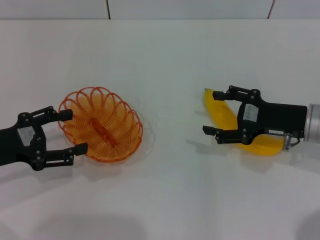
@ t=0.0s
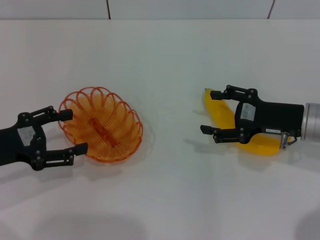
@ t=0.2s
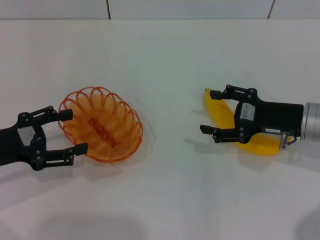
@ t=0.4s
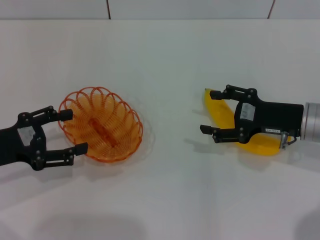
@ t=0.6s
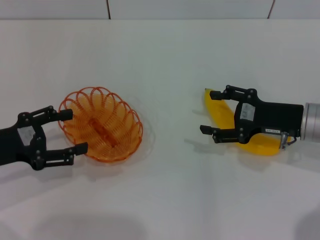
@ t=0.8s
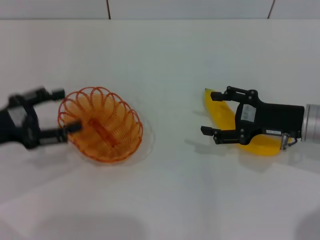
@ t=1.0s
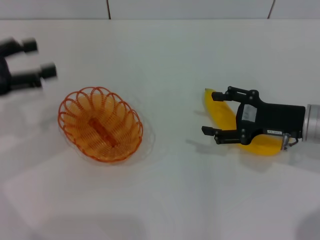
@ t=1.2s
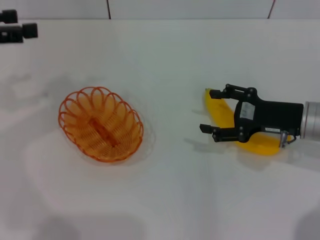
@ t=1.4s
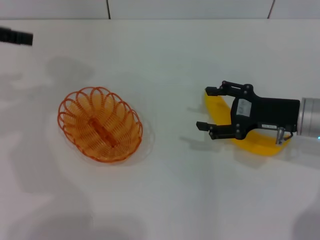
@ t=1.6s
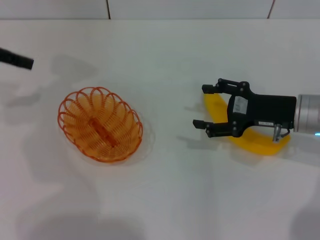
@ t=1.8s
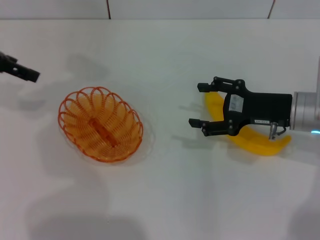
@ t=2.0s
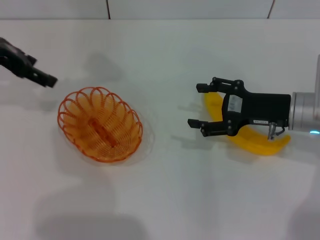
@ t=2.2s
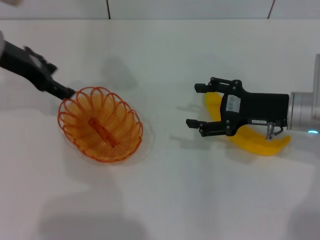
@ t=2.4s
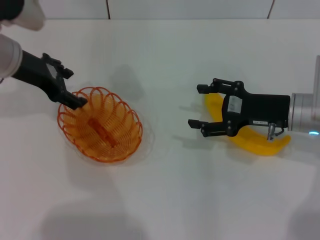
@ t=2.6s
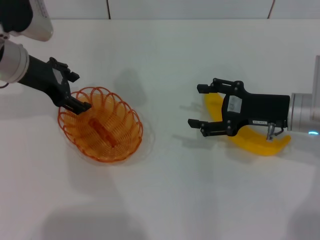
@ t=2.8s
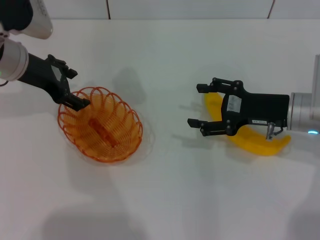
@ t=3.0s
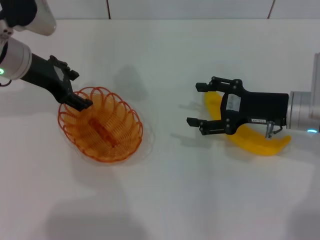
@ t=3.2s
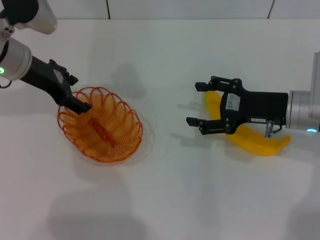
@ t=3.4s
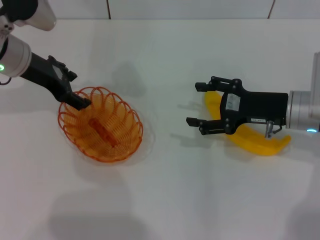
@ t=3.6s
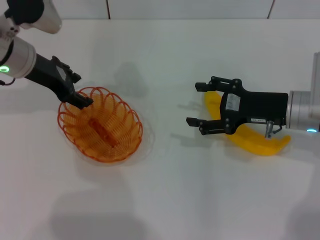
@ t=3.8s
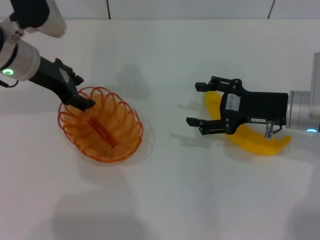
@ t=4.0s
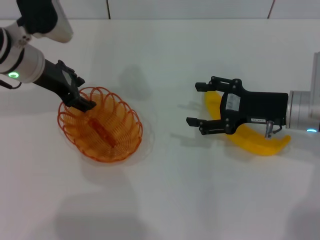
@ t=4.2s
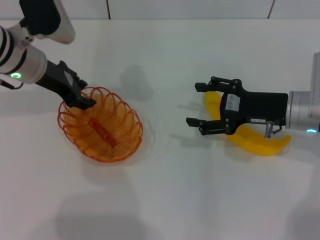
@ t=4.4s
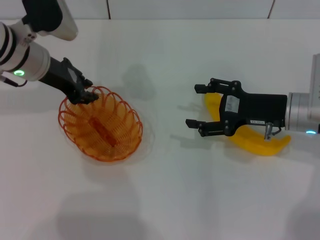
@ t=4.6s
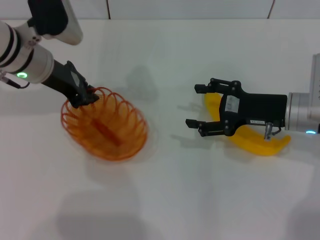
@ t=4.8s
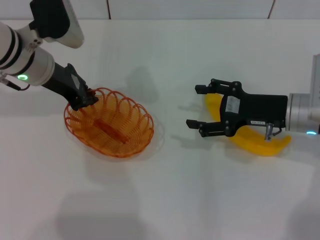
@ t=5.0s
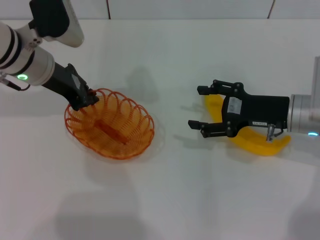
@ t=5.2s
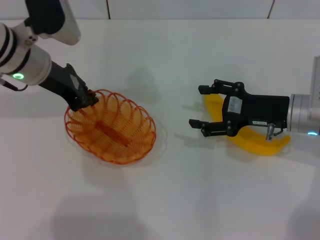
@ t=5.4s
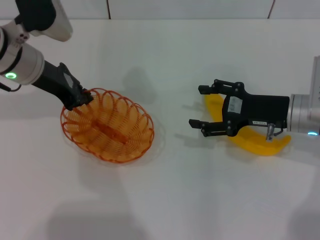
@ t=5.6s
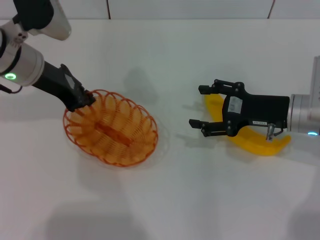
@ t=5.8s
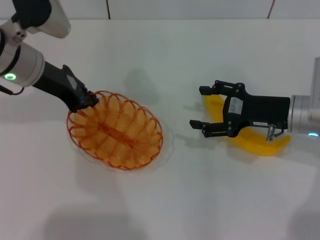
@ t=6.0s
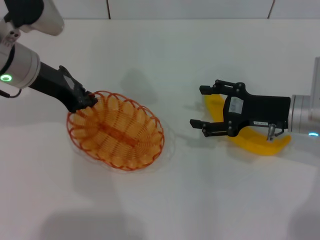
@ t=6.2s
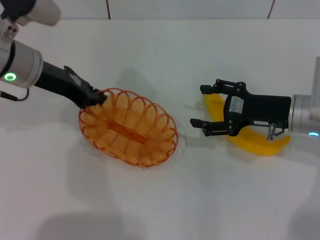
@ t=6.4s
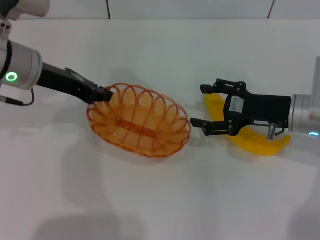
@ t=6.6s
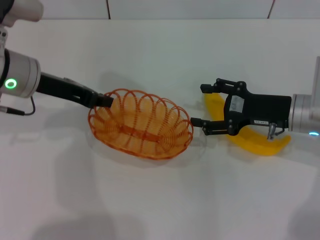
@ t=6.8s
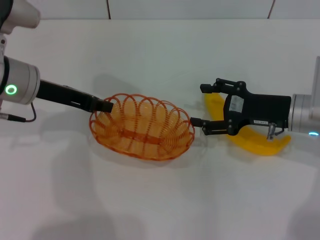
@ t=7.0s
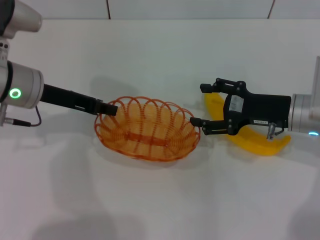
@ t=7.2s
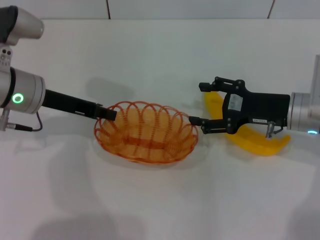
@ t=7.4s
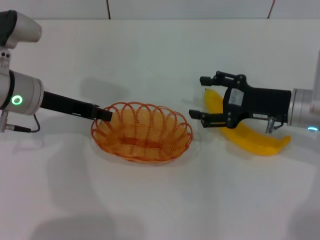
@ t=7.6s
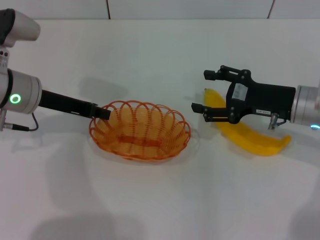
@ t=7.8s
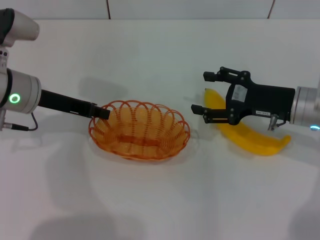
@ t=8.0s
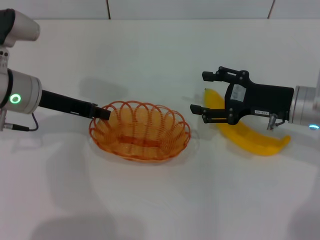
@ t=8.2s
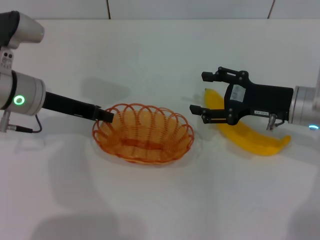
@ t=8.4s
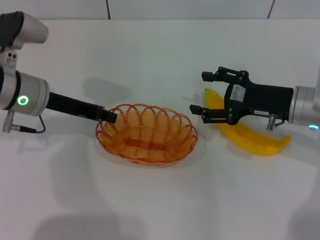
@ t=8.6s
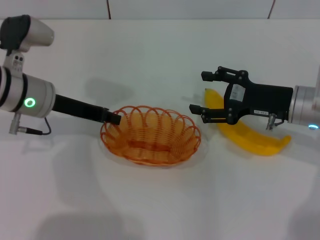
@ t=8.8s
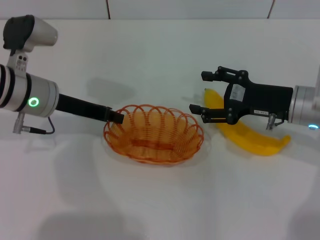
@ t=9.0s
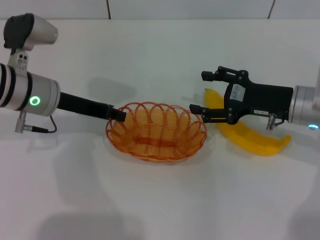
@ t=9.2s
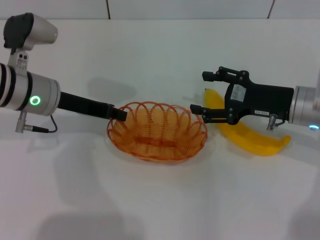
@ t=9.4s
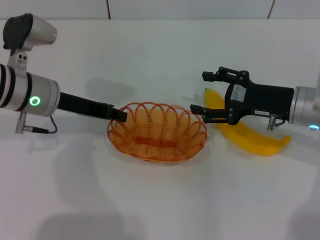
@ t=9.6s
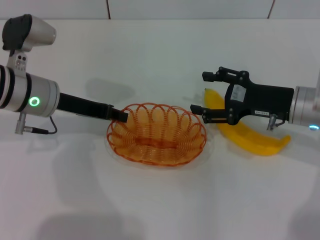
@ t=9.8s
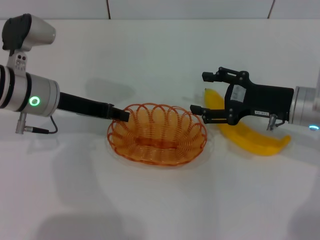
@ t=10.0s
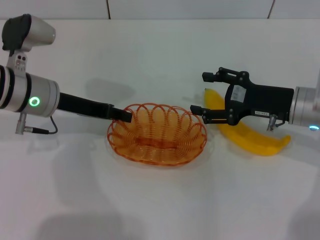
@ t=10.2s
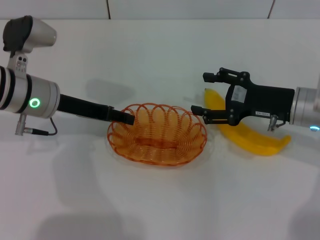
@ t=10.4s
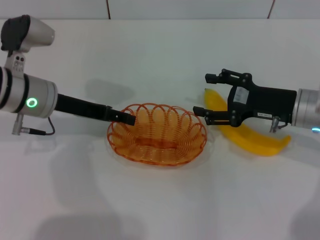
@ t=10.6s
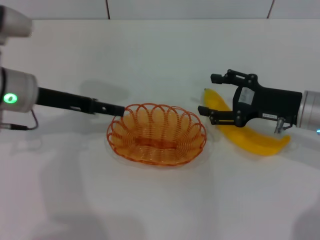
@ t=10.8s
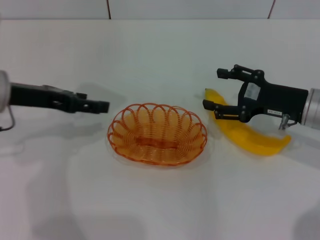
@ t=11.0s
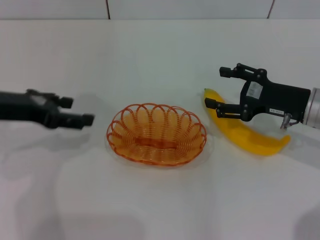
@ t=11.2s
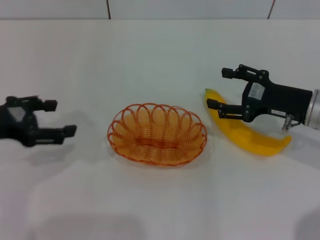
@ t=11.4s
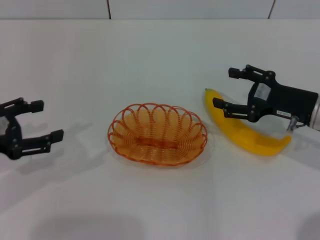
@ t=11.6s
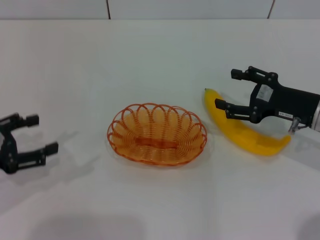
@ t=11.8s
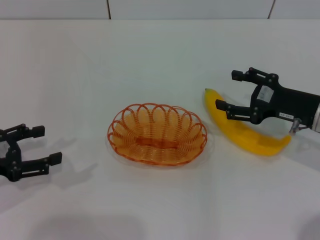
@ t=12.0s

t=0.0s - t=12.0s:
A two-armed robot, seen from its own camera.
Step, t=0.0s - t=5.8s: Pick up the basket with the left gripper.
Step, t=6.0s - t=10.6s: Place the basket in the center of view with the left gripper.
t=0.0s - t=1.6s: The left gripper goes roughly 20 cm upward and forward.
t=1.6s - t=3.0s: The left gripper goes roughly 15 cm to the right and downward.
t=3.0s - t=4.4s: The grippers make only small movements.
t=4.4s - t=6.0s: The left gripper closes up.
t=6.0s - t=7.6s: The left gripper shifts by approximately 5 cm.
t=7.6s - t=9.0s: The grippers move only a little.
t=9.0s - t=10.4s: The left gripper opens.
t=10.4s - t=12.0s: The left gripper heads to the left and backward, covering roughly 20 cm, and opens its fingers.

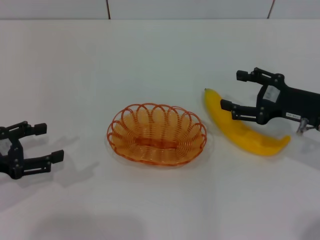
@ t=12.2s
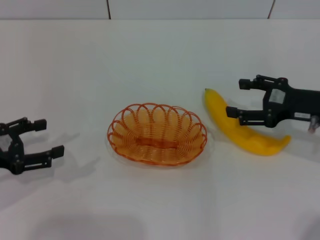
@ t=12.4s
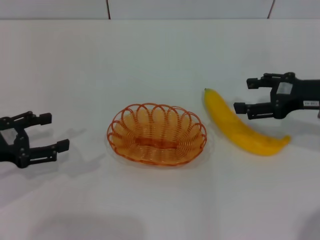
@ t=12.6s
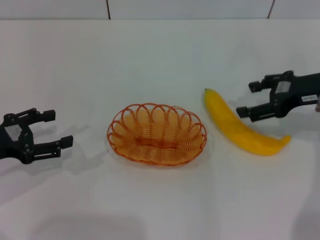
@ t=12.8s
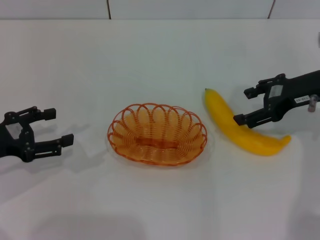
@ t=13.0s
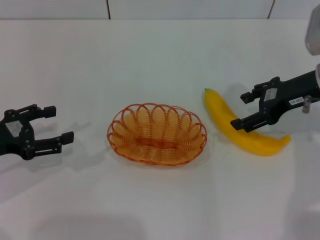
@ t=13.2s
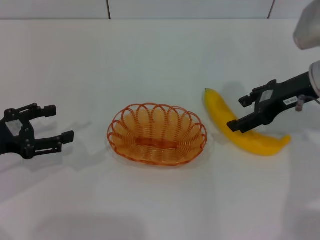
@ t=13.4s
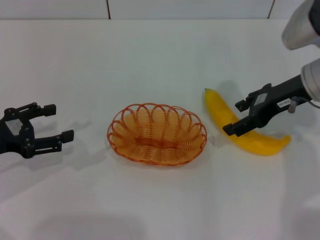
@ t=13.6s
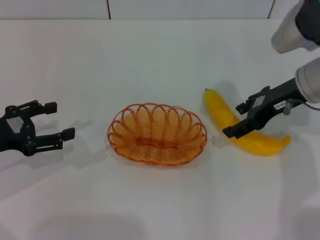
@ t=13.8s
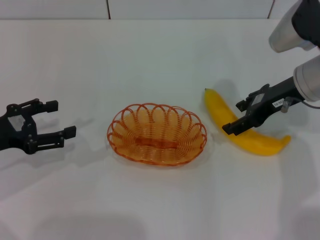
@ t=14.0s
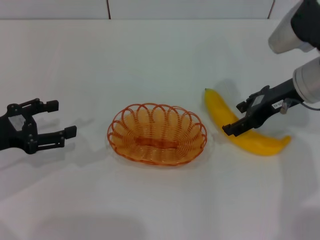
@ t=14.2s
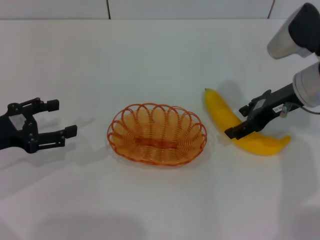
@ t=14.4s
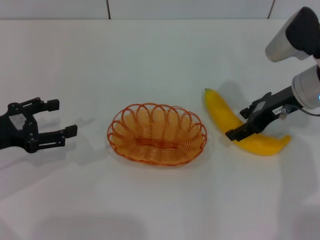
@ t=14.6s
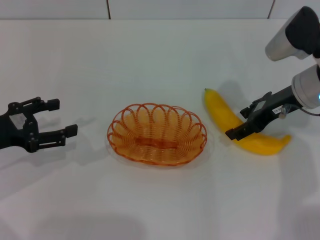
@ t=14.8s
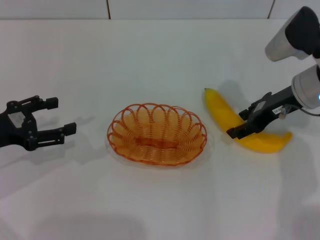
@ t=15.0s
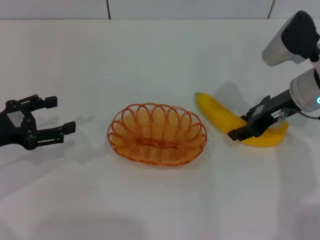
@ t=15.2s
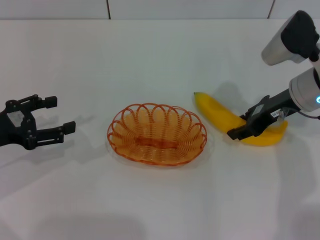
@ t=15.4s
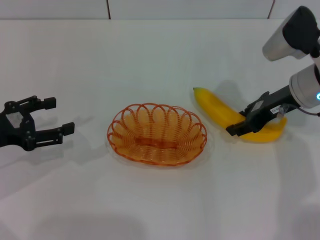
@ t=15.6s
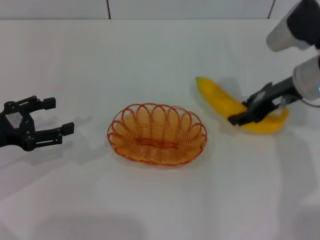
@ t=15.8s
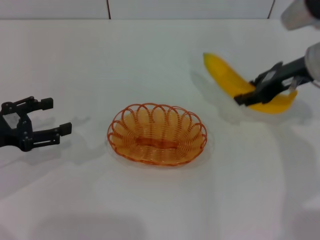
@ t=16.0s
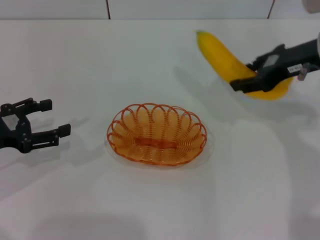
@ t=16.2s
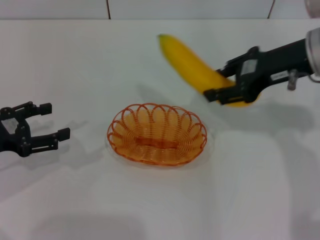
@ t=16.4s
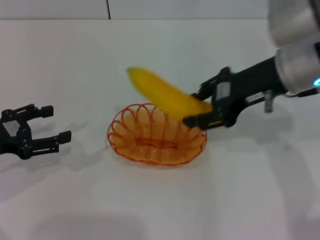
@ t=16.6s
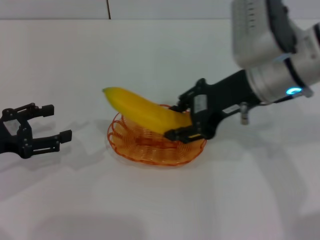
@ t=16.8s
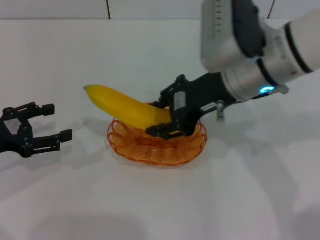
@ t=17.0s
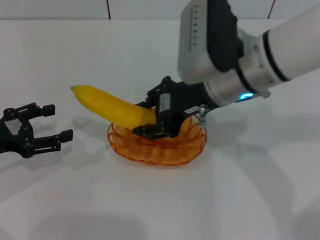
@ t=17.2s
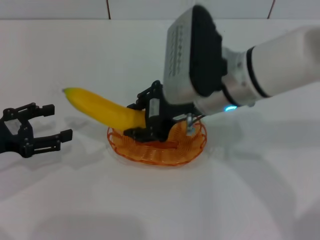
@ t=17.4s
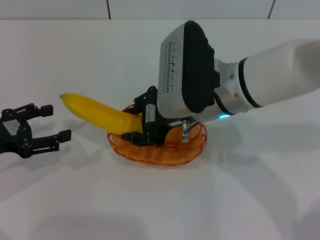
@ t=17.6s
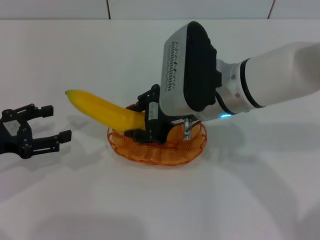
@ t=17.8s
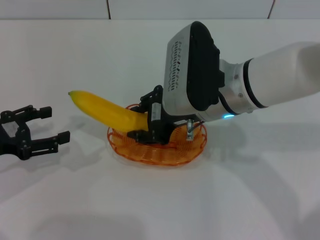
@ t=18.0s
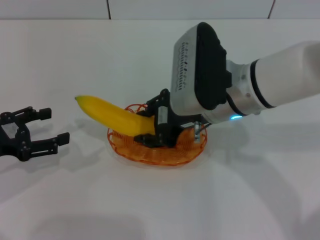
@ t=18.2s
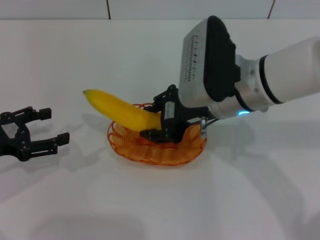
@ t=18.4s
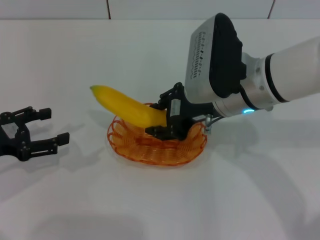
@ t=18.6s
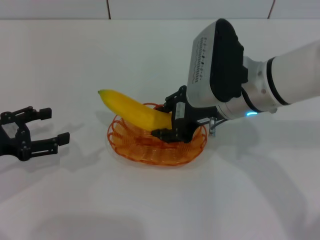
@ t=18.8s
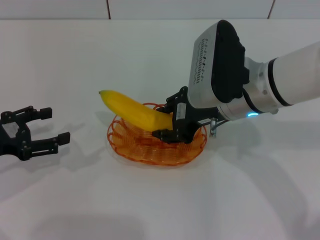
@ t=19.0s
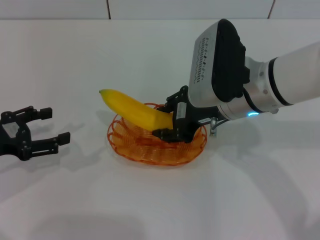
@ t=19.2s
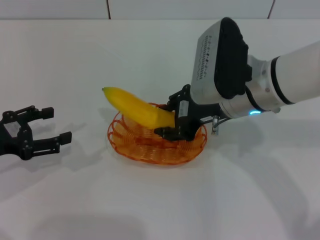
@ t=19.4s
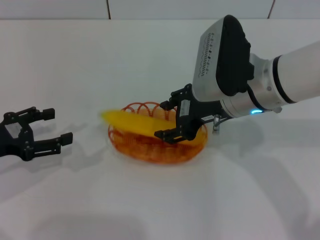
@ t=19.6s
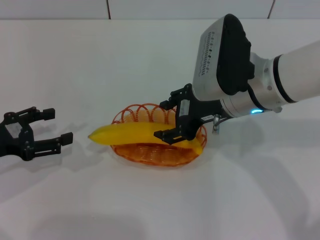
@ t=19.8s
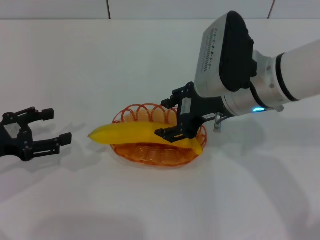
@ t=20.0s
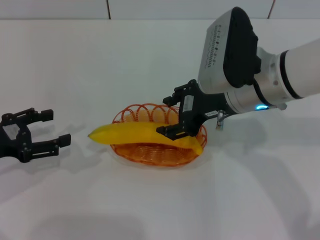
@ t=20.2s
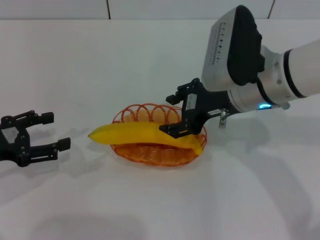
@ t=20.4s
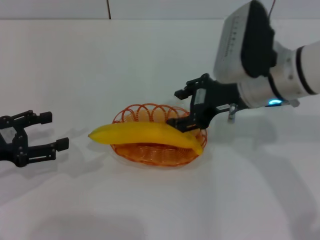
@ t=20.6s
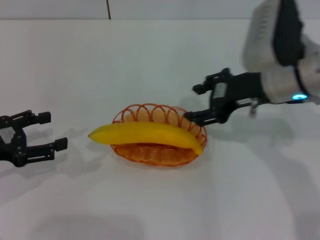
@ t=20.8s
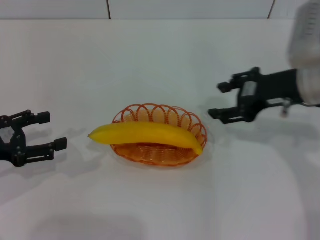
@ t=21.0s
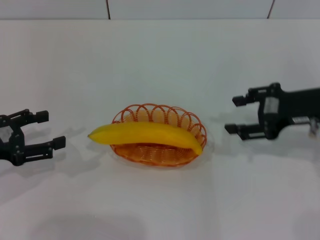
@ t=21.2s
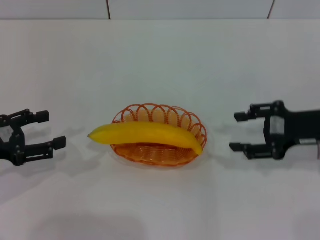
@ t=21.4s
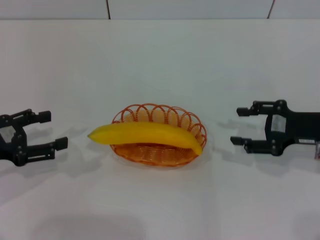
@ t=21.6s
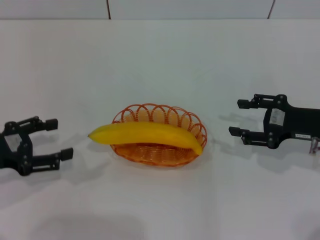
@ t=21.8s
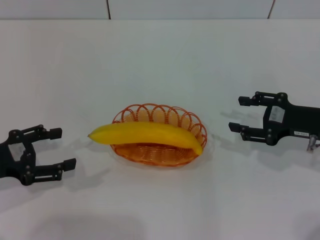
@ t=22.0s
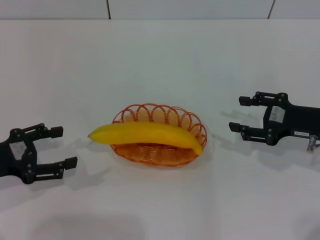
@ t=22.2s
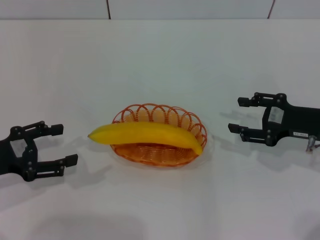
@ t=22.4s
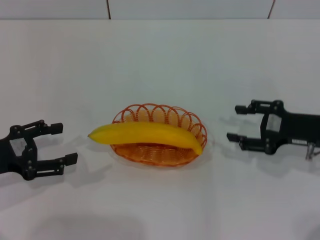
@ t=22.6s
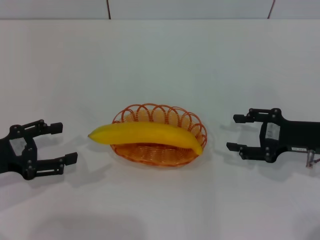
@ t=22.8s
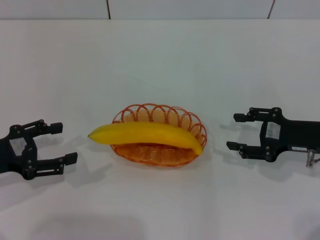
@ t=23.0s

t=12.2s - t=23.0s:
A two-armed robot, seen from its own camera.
Step, t=12.2s - t=16.0s: Pick up the banana with the right gripper.
Step, t=16.2s - t=19.8s: Place the banana into the basket with the right gripper.
t=12.2s - t=13.8s: The right gripper heads upward, forward and to the left, covering about 10 cm.
t=13.8s - t=15.2s: The right gripper closes its fingers.
t=15.2s - t=16.8s: The right gripper heads to the left and upward, covering approximately 10 cm, and closes its fingers.
t=16.8s - t=18.4s: The right gripper shifts by approximately 5 cm.
t=18.4s - t=20.0s: The right gripper opens up.
t=20.0s - t=21.4s: The right gripper heads to the right, covering some 15 cm.
t=21.4s - t=23.0s: The right gripper is displaced downward by roughly 5 cm.
